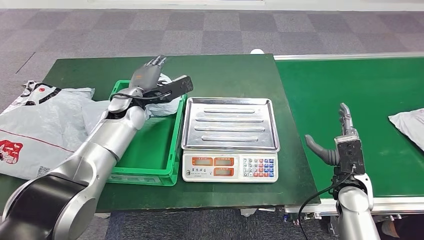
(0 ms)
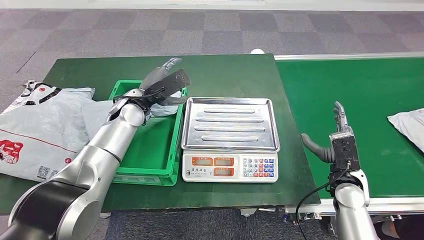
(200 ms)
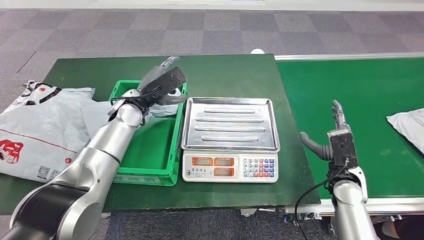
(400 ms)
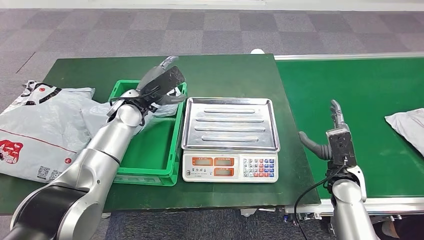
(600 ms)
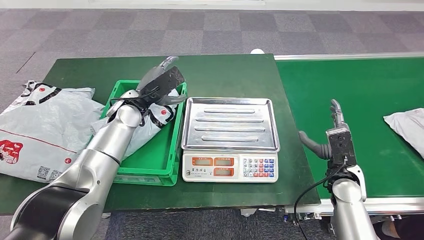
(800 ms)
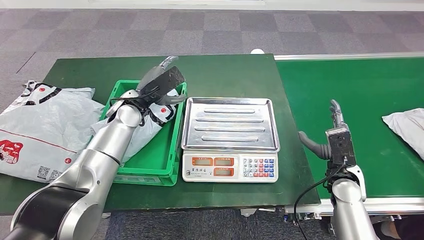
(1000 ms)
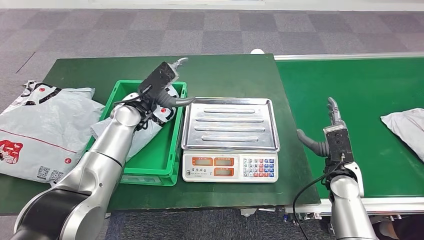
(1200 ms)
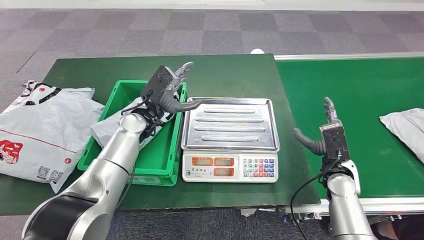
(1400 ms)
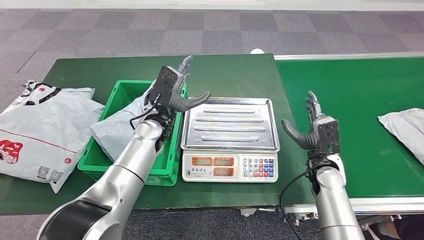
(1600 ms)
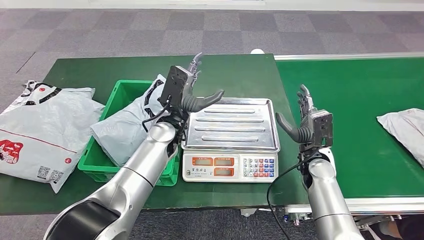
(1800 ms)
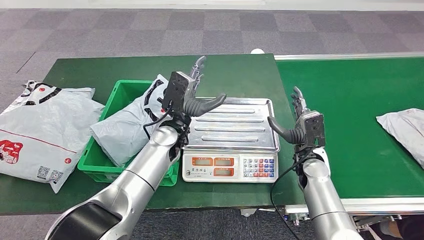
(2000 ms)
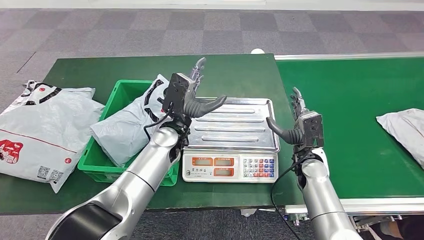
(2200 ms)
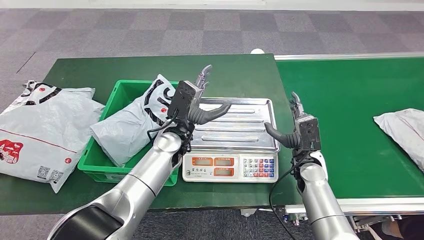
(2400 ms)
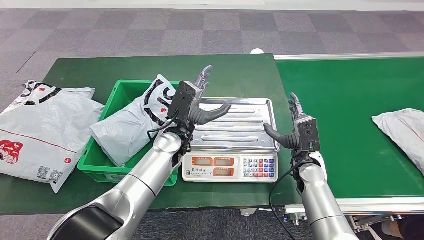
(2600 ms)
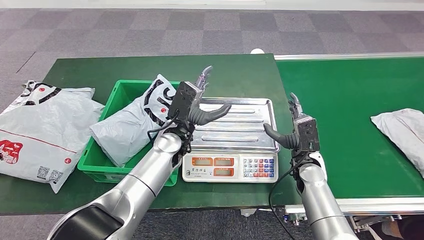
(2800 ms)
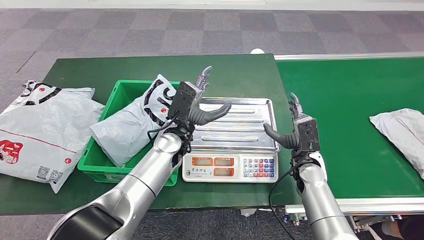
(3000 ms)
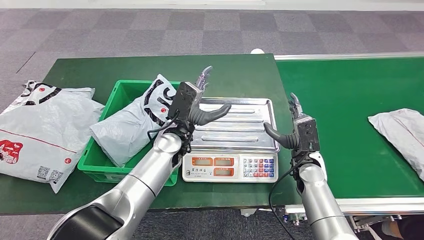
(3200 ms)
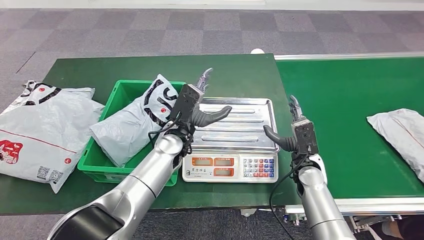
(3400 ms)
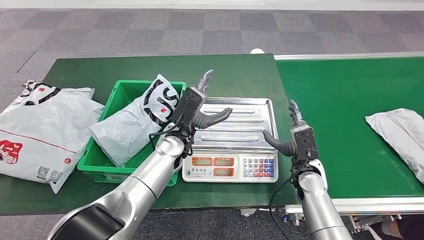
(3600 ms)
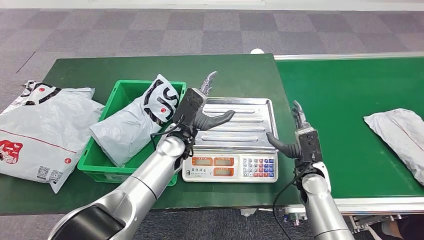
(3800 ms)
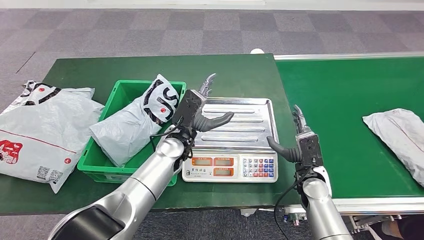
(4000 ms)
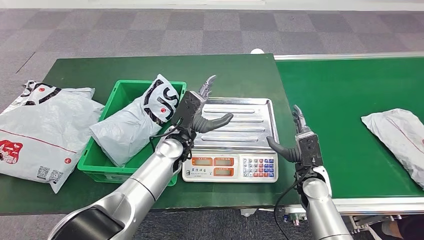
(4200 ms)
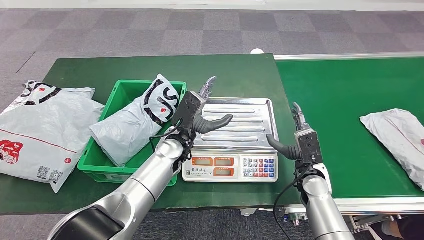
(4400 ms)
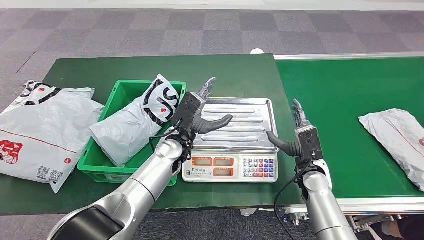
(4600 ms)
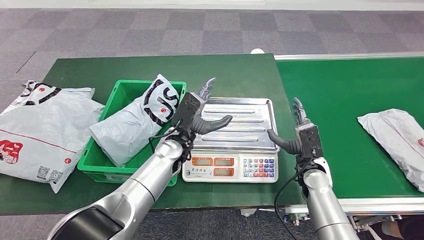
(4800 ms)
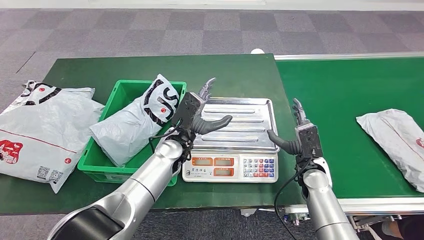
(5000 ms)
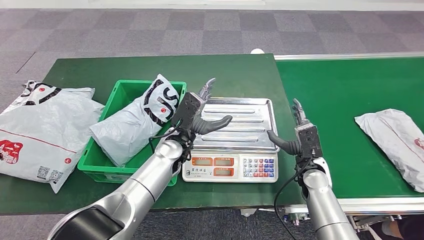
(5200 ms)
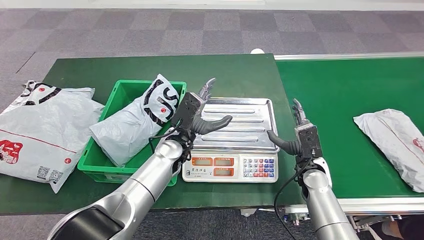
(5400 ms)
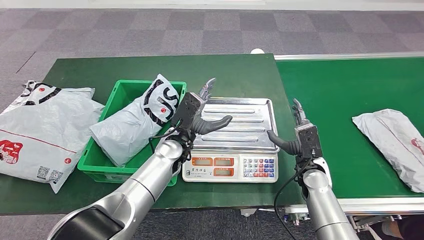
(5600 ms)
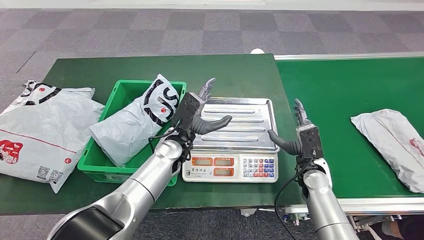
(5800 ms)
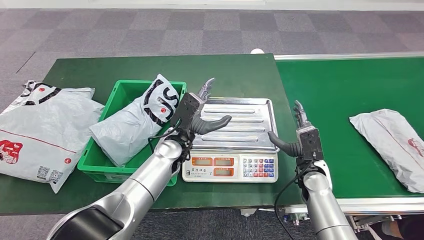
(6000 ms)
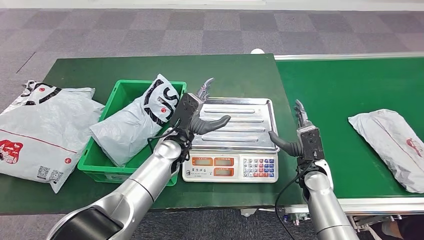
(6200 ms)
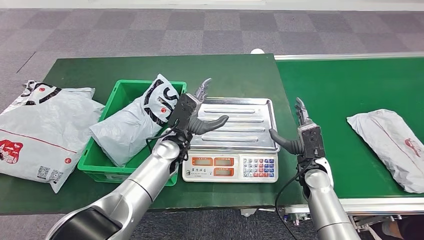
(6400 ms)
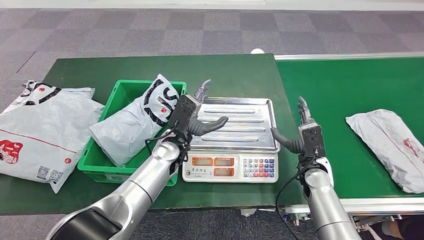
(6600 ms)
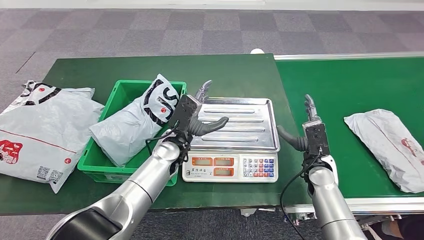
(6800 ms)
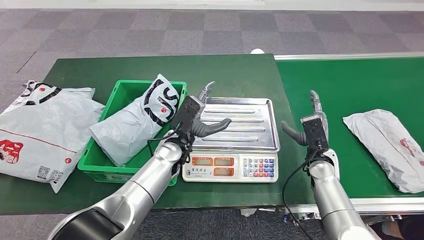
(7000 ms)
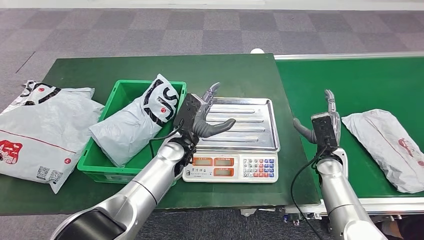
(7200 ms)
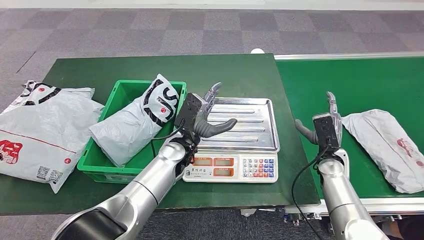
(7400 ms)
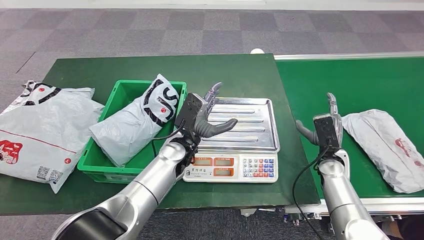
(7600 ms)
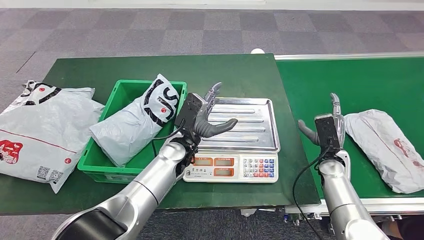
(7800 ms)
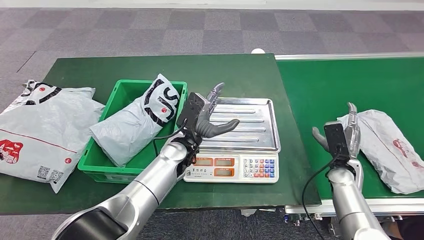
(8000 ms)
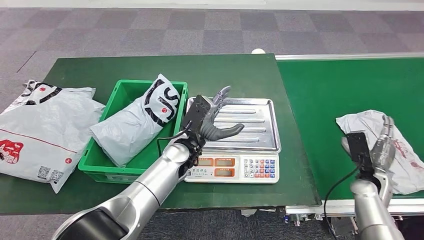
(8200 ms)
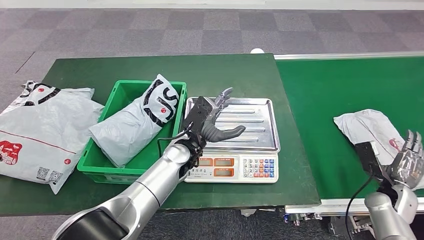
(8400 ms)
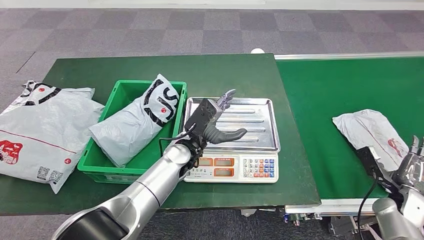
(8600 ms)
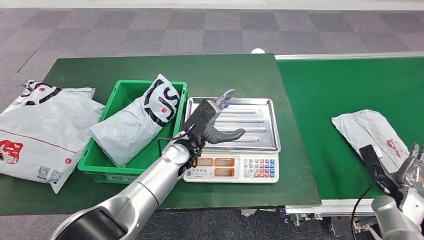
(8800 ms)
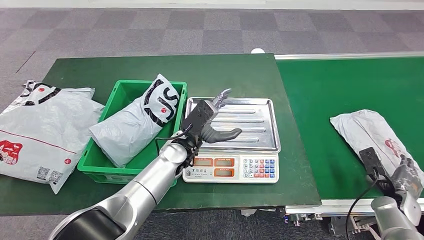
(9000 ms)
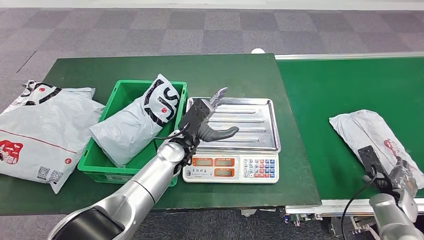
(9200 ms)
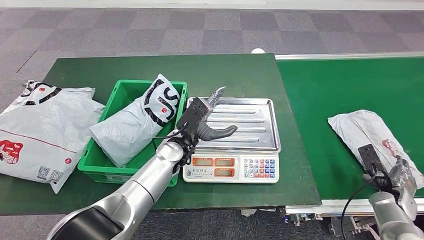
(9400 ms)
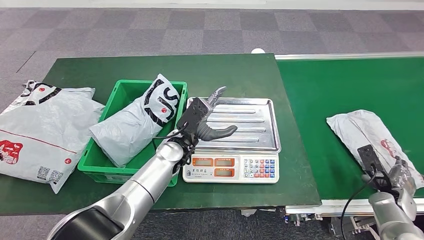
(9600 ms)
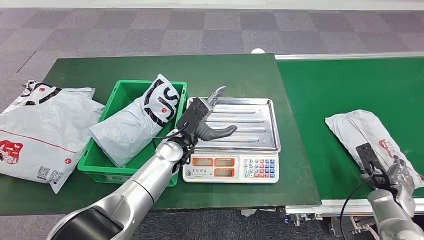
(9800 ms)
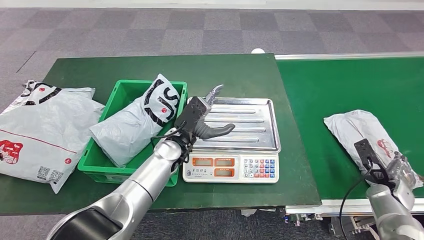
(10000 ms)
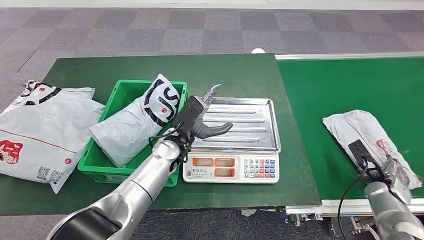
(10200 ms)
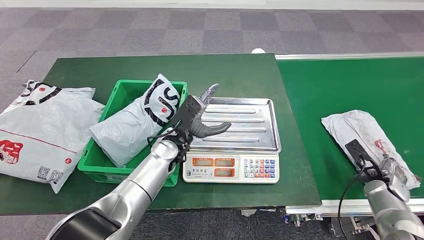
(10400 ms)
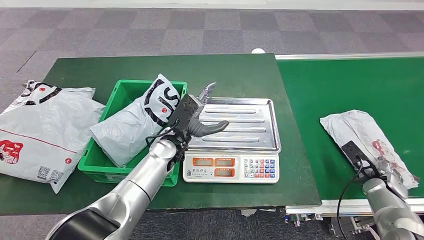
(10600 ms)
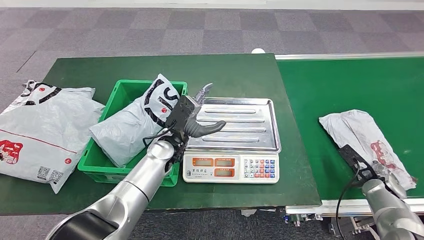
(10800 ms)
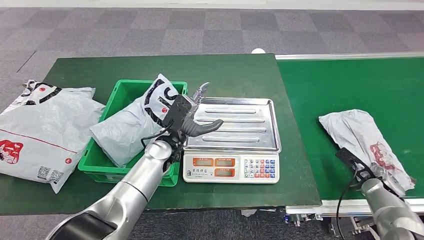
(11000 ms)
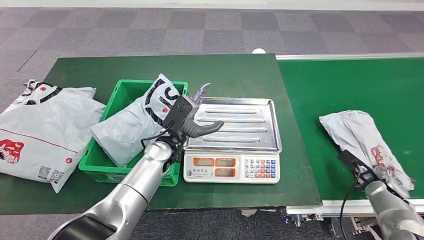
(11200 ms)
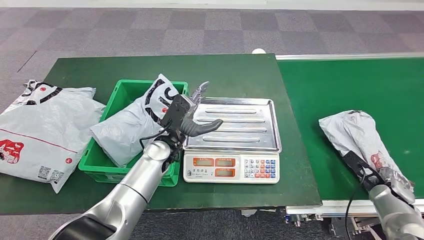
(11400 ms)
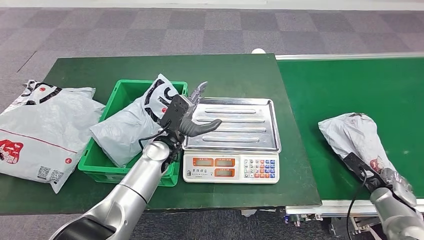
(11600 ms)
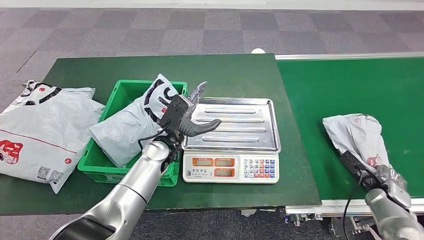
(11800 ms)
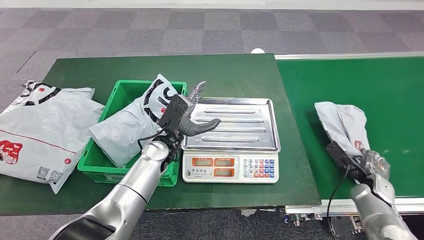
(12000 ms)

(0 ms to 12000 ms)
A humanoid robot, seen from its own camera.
1600 ms - 3000 ms: The left hand changes place by approximately 5 cm.
3000 ms - 6000 ms: The hands stay close to where they were, moving slightly.
6000 ms - 7600 ms: The right hand is displaced to the right by about 5 cm.
7600 ms - 9000 ms: The right hand goes some 20 cm to the right and backward.
9000 ms - 10400 ms: There are only small adjustments of the hands.
10400 ms - 12000 ms: The hands stay close to where they were, moving slightly.

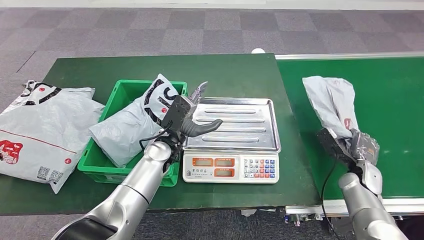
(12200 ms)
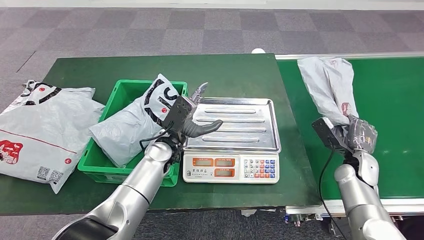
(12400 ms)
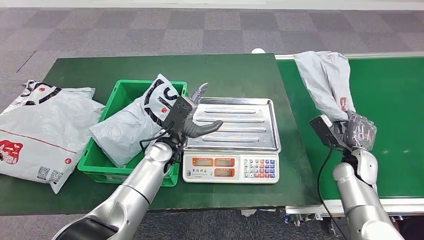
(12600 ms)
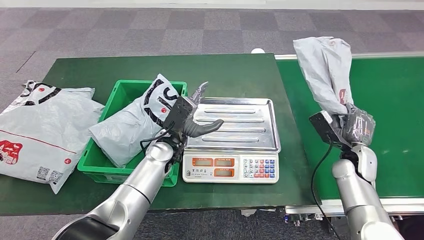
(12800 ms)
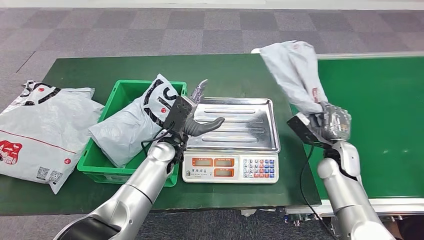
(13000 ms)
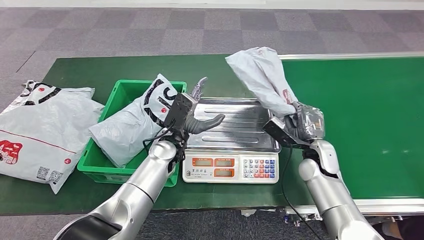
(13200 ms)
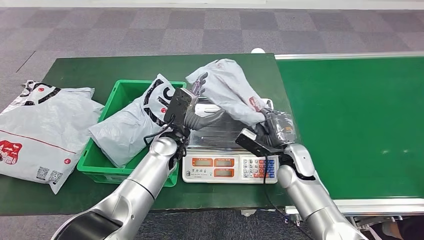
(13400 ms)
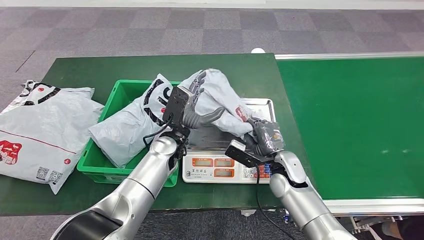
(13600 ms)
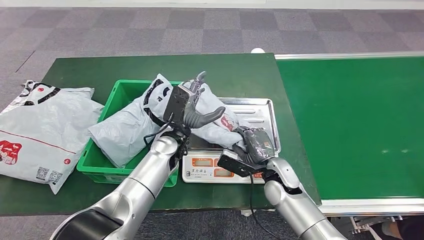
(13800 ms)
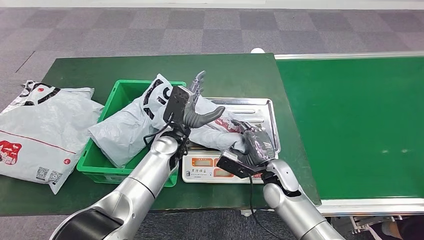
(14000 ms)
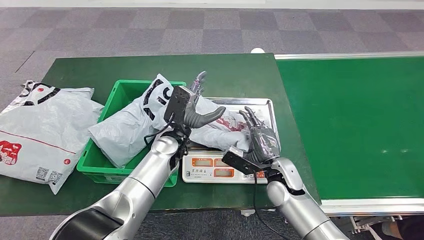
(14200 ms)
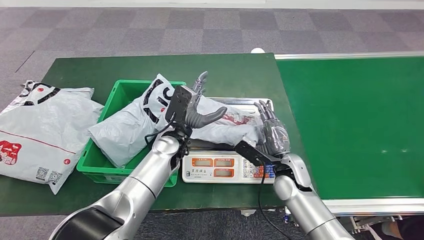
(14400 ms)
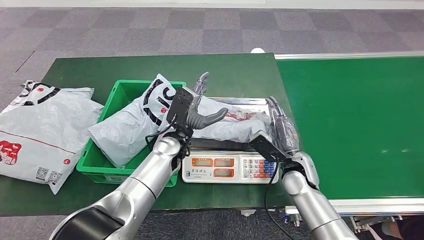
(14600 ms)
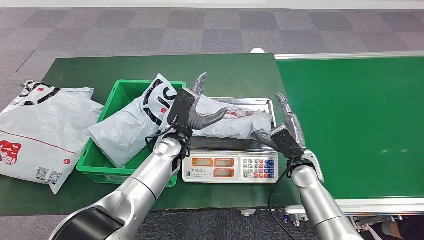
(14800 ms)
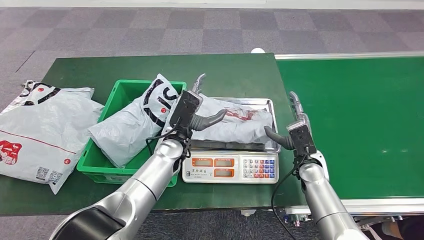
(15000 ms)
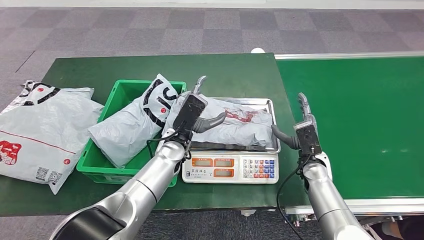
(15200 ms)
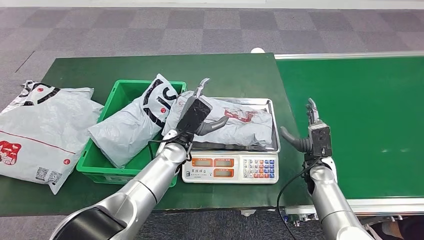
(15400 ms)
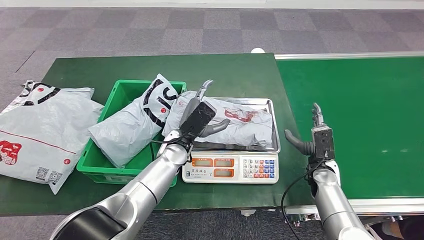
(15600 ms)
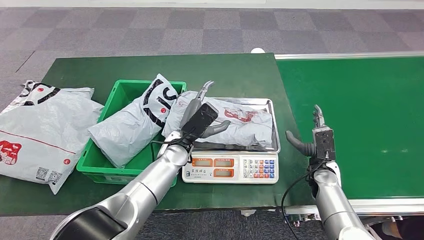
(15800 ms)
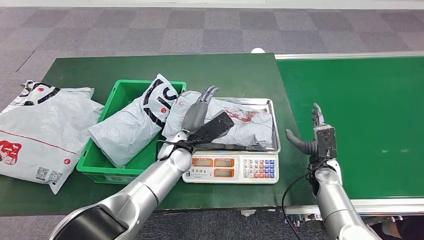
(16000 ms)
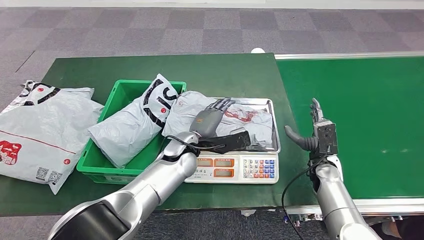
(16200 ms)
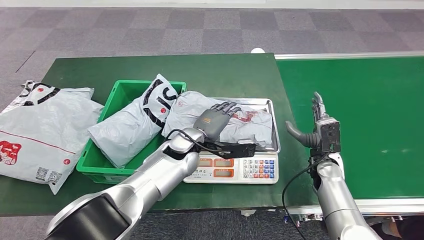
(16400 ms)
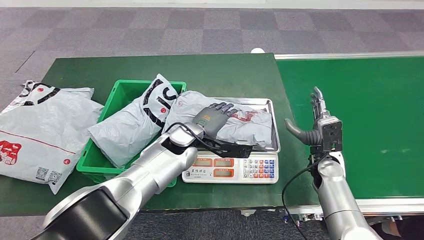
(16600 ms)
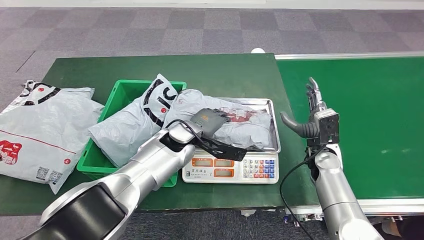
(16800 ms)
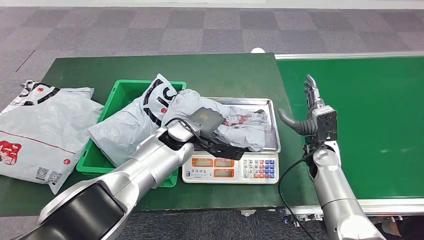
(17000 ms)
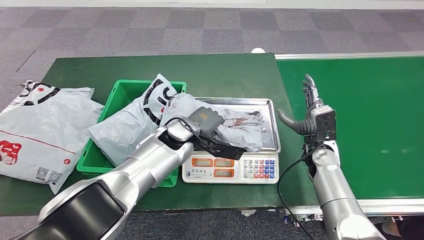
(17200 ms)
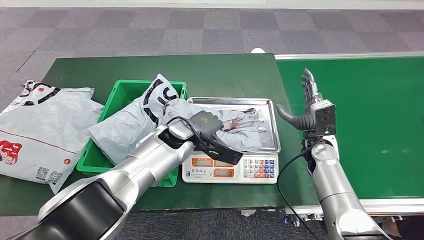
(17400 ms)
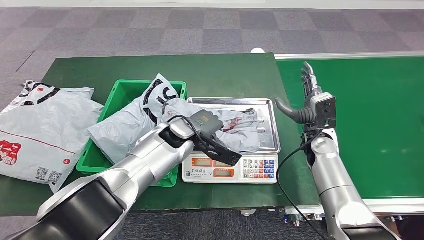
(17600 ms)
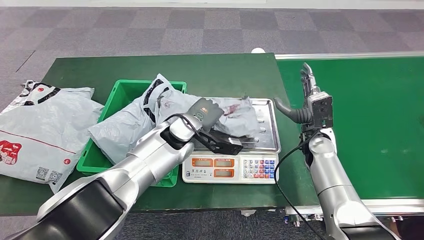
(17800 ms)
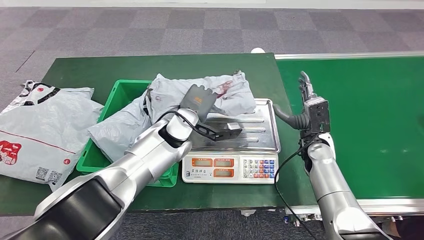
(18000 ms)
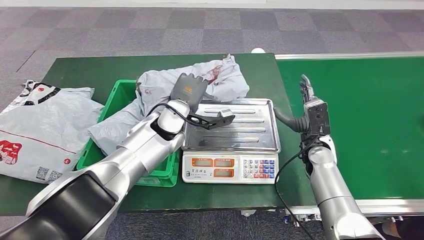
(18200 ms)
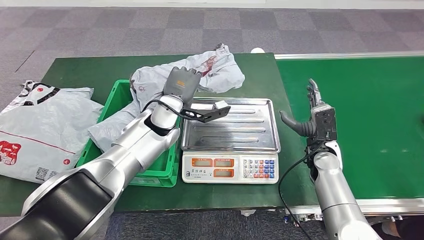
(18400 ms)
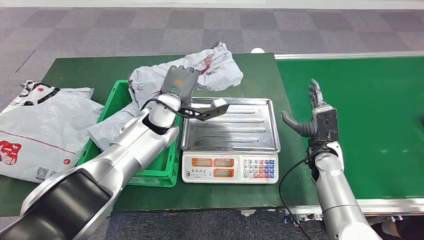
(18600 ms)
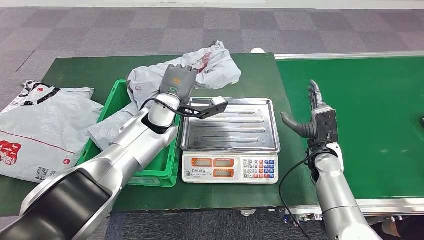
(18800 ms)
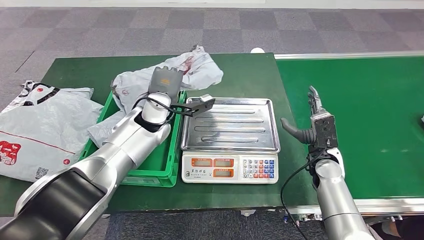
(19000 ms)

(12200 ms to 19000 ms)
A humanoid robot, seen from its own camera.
Step, 12600 ms - 15600 ms: Place the parcel onto the inbound machine.
Step, 15800 ms - 18600 ms: Pick up the parcel from the inbound machine.
13600 ms - 15000 ms: The right hand goes about 10 cm to the right.
15000 ms - 16200 ms: The right hand heads to the right, covering about 5 cm.
16200 ms - 17600 ms: The right hand moves upward, some 10 cm; the left hand changes place by approximately 5 cm.
